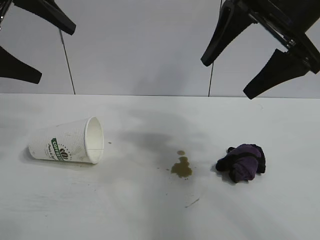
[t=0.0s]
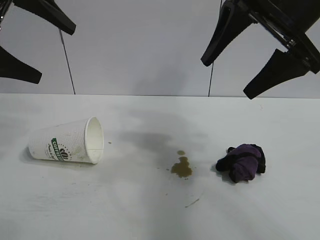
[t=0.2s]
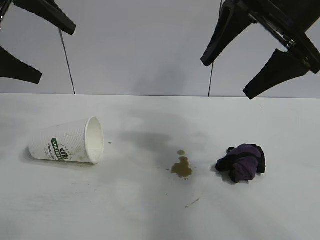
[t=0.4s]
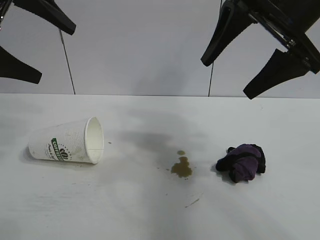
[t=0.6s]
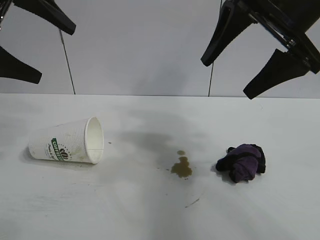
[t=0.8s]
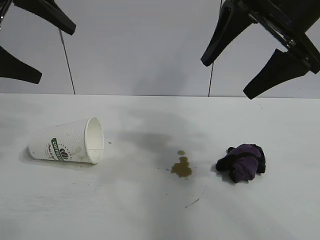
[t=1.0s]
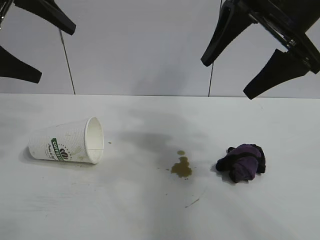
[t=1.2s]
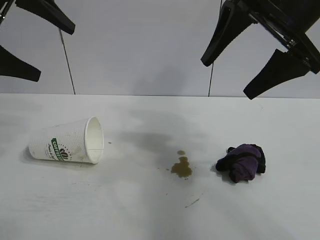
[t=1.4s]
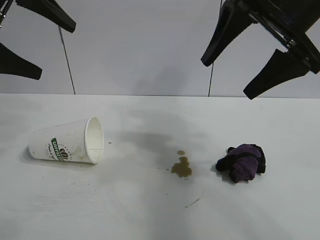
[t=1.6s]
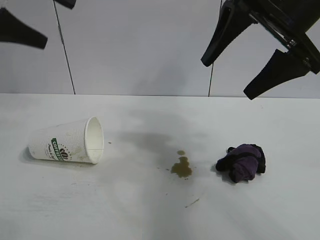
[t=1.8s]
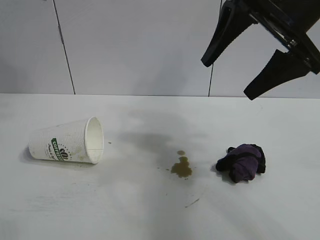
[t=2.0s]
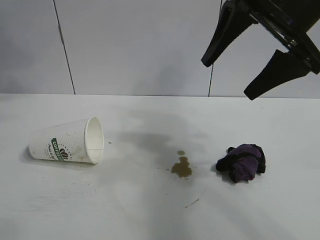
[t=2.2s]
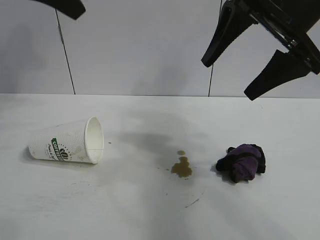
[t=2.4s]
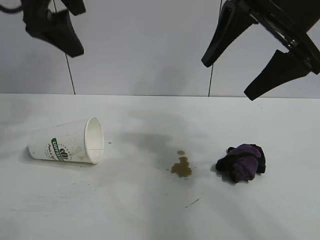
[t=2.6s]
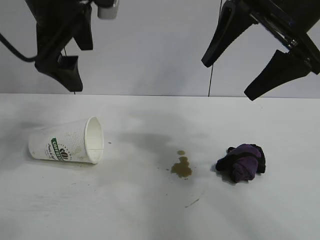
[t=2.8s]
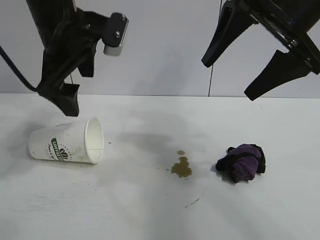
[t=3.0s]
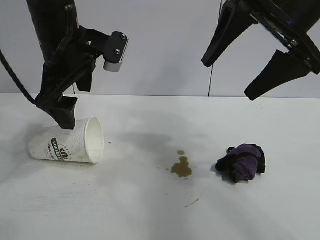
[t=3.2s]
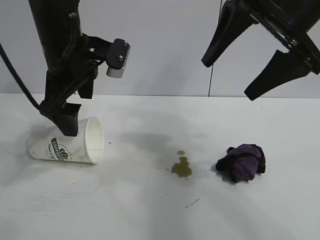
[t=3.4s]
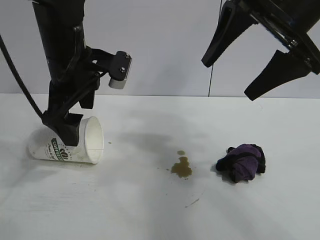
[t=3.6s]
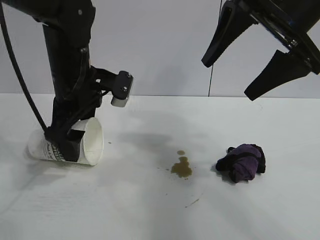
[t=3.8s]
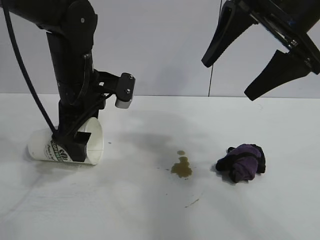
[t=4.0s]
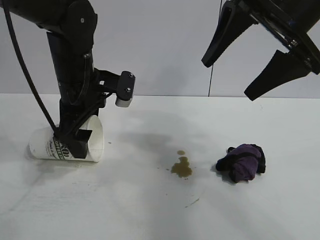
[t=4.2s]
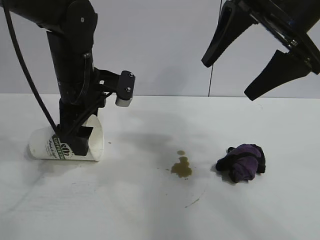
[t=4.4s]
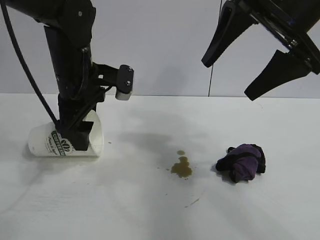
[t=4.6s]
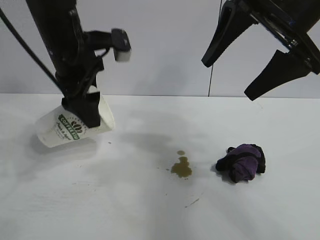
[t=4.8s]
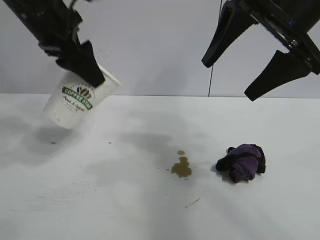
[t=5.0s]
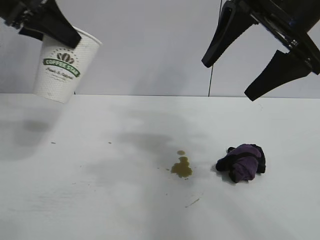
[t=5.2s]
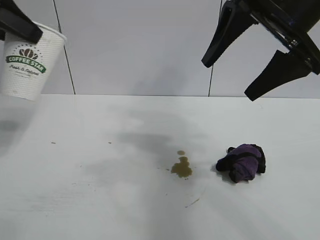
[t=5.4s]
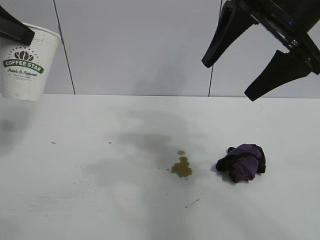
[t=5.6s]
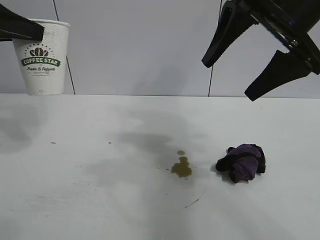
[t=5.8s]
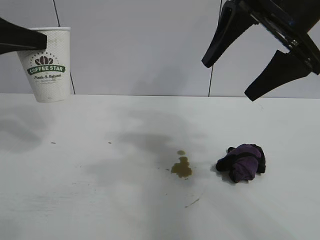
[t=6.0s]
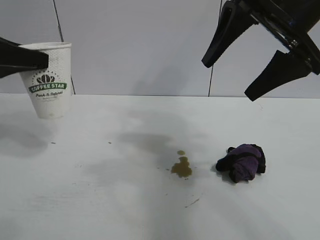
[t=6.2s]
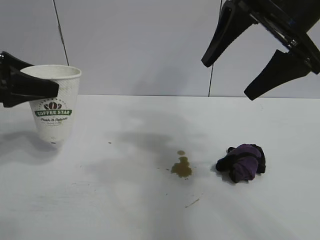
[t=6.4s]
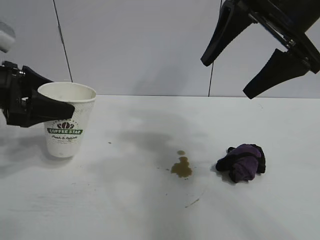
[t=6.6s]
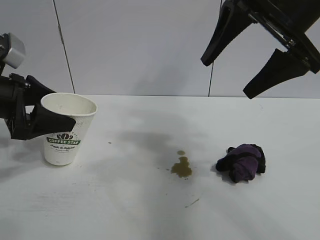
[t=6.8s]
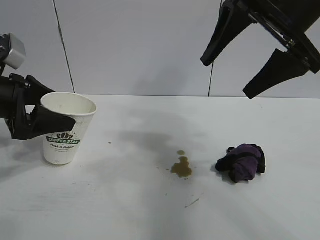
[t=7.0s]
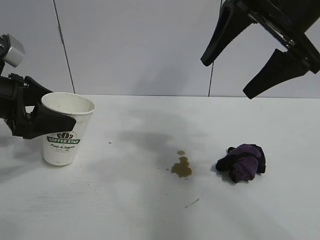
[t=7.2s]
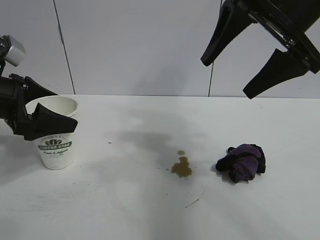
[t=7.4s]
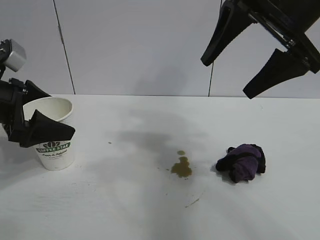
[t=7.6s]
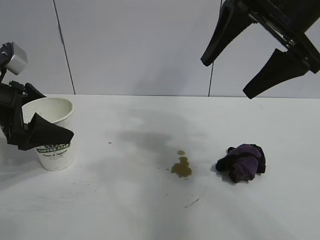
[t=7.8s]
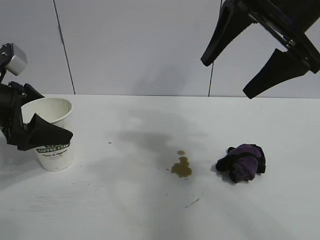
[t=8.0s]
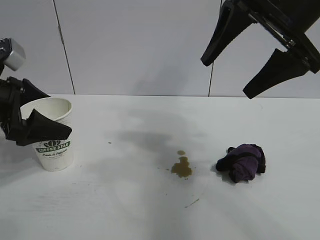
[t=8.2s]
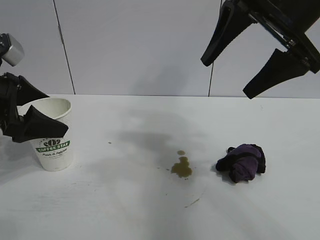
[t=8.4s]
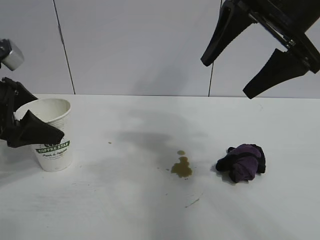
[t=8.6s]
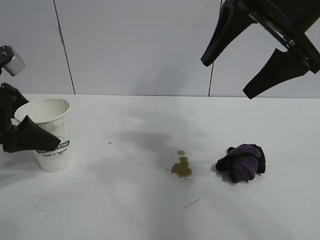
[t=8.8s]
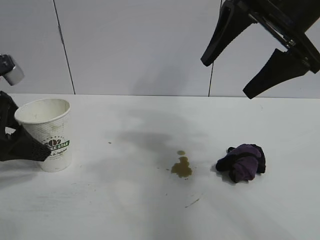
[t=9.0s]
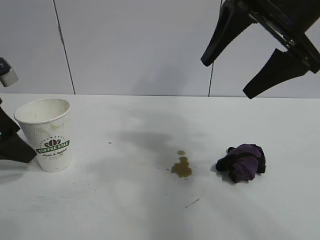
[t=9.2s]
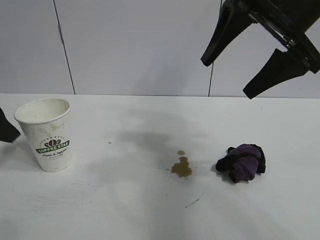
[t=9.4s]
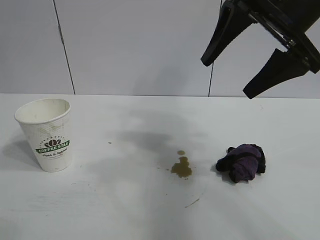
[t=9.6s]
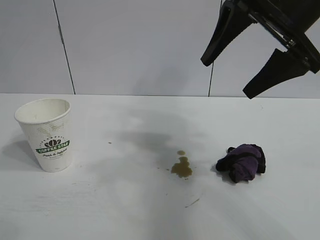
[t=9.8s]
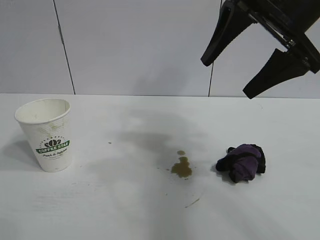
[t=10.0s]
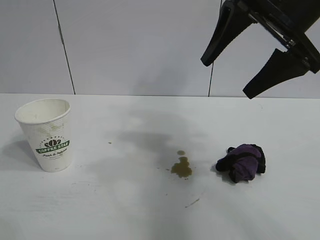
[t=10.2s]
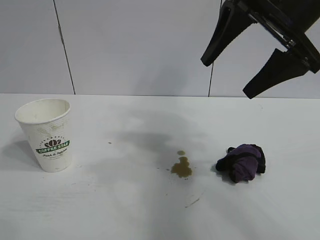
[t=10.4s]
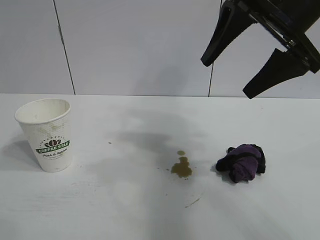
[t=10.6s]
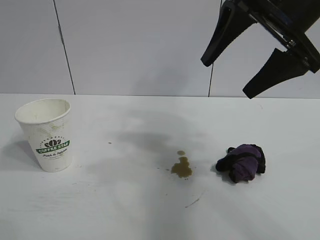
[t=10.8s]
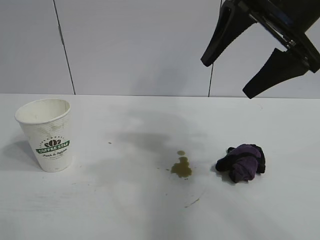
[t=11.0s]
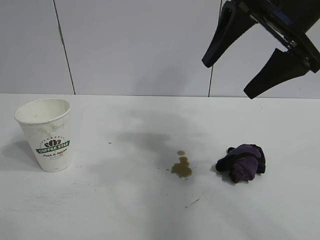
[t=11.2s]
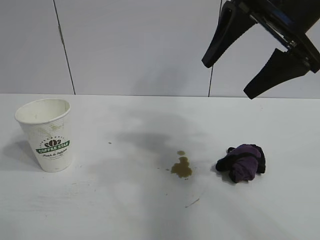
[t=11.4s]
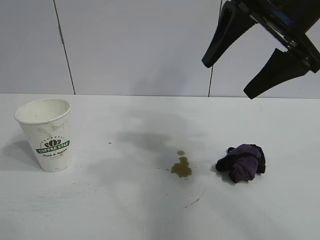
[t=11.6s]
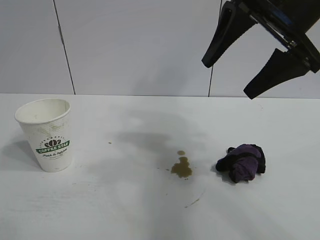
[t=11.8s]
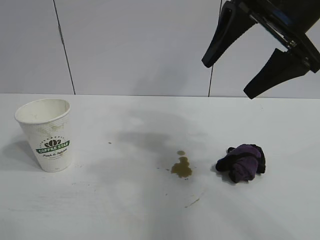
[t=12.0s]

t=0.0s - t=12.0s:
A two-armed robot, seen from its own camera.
Task of the whole recording: the left gripper pick up the fallen cup and place it upright, the right gripper grasp the black rag and wipe the stain on the table, the right gripper put the black rag back in its original position.
Step, t=1.6s - t=4.4s: Grasp the paper cup with left gripper.
Step, t=4.6s - t=7.4s: Stand the paper cup upright with left gripper.

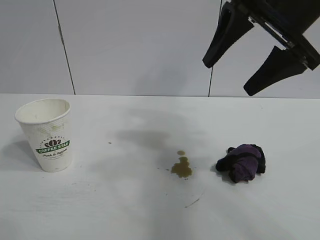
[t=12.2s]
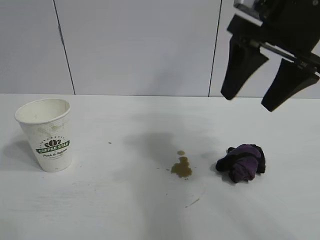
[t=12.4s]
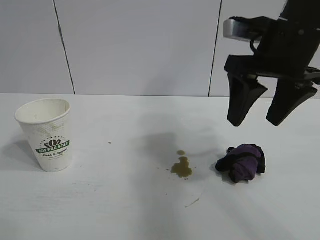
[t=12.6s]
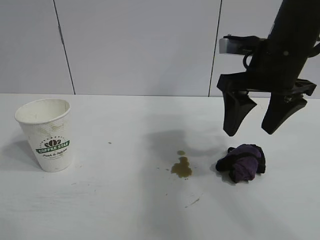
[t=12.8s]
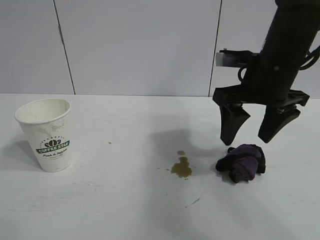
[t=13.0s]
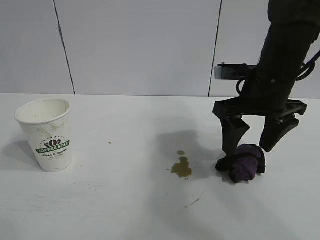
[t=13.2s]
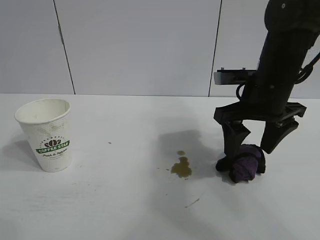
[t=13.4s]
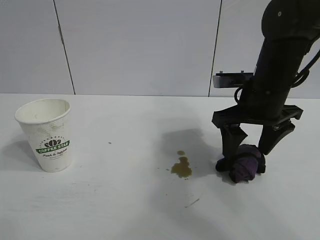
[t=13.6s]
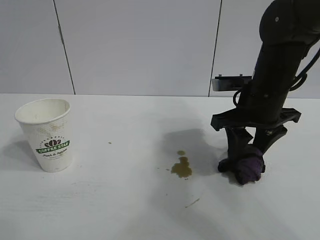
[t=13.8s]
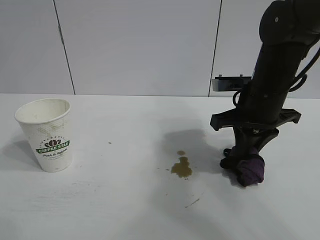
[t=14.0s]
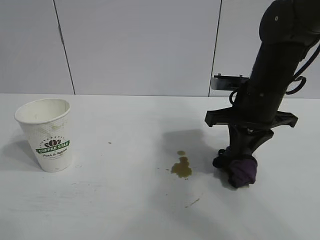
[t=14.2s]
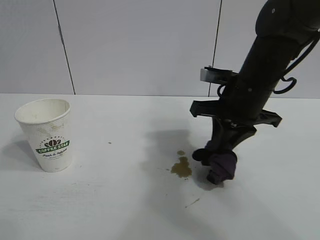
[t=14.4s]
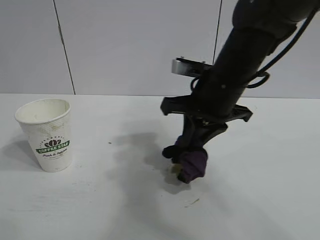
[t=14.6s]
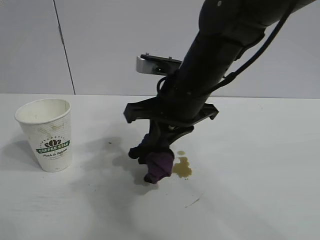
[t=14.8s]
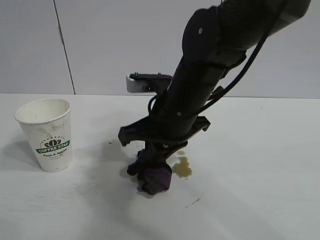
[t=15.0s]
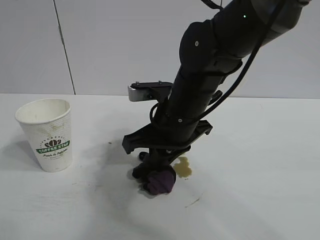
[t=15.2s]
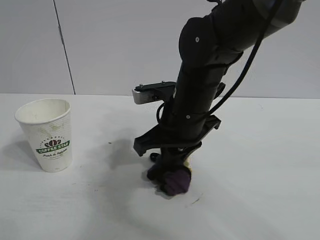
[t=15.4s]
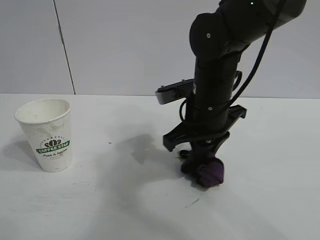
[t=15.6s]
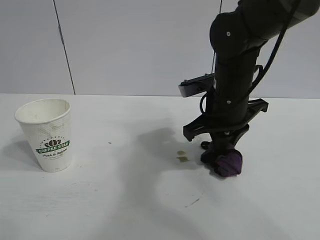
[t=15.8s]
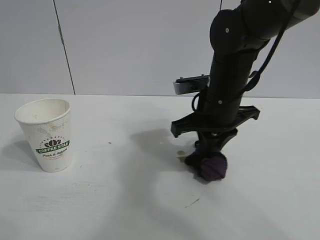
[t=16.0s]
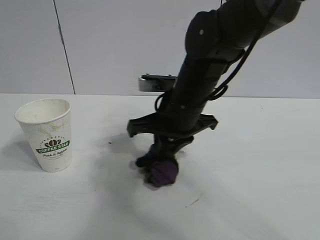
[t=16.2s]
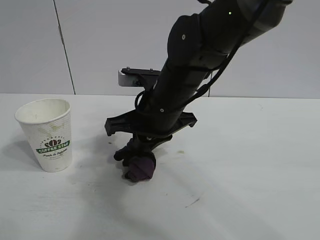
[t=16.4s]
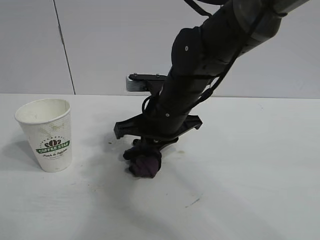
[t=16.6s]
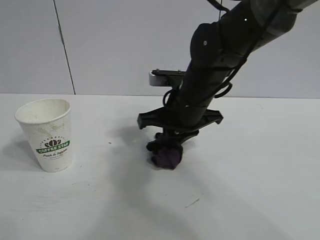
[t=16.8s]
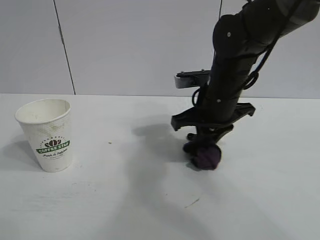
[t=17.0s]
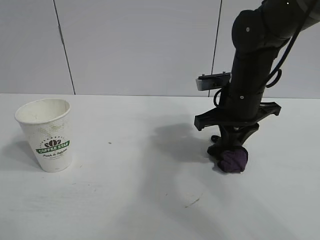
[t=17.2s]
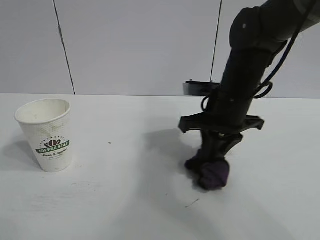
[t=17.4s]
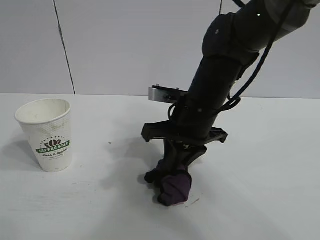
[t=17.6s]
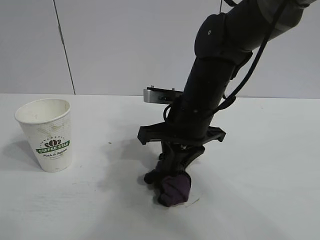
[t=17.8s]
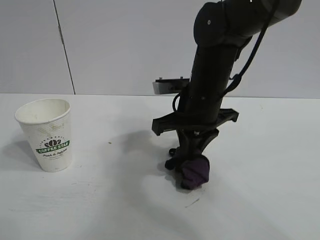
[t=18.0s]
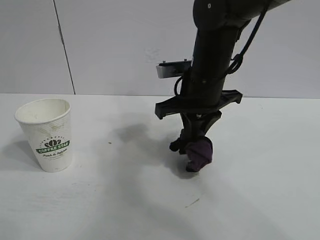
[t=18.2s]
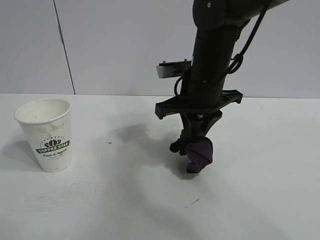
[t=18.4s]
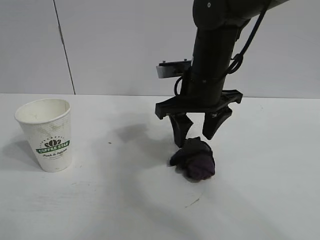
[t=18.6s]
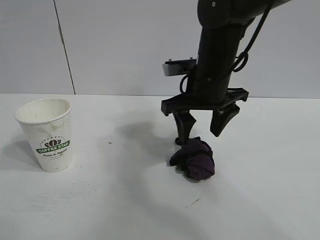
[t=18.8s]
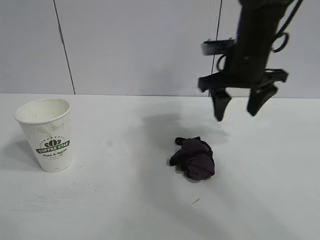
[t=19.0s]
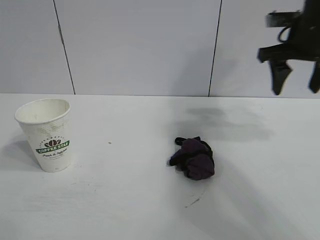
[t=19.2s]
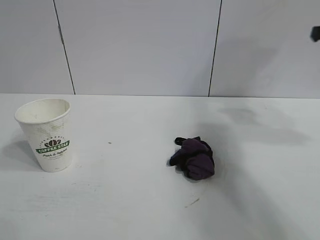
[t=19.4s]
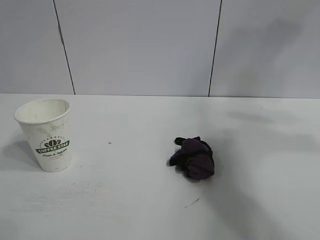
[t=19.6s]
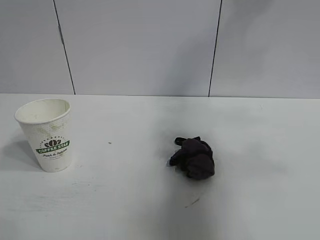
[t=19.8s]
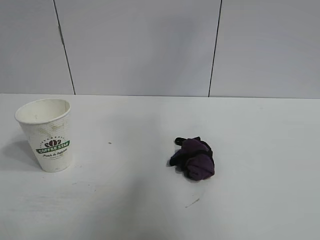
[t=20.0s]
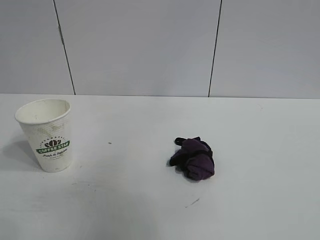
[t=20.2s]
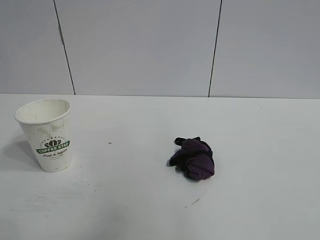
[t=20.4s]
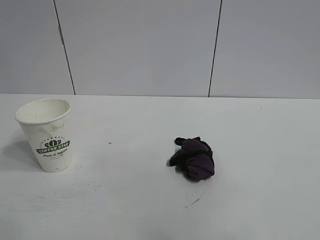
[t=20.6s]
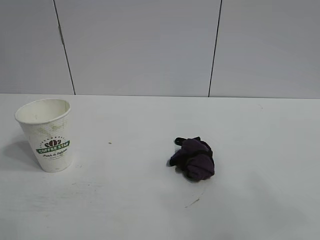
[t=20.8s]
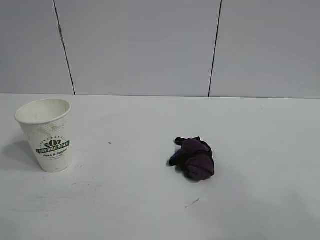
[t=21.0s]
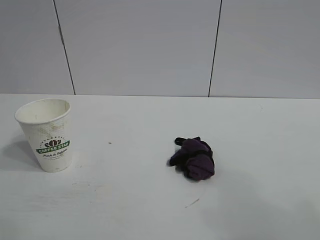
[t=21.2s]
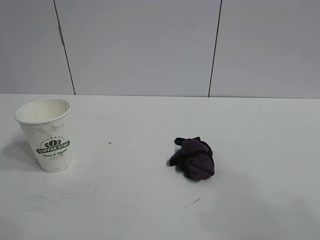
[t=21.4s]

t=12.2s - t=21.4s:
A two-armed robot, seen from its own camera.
Task of the whole recording: the left gripper pick up the fallen cup and place it upright, the right gripper grasp the black rag and wipe the stain on the table, the right gripper put the black rag back in its original position.
Step, t=14.2s - t=17.8s: Wipe the stains off the table with the rag with right gripper.
Step, t=18.0s - t=18.4s: Place the rag on the table with right gripper.
